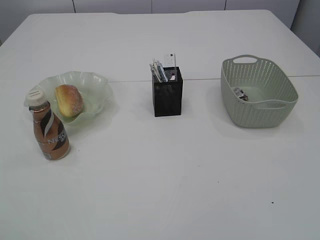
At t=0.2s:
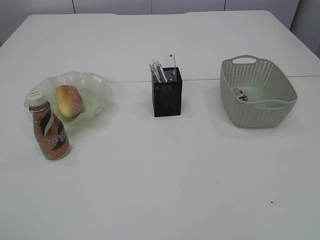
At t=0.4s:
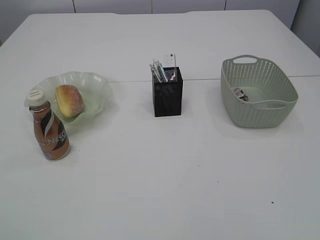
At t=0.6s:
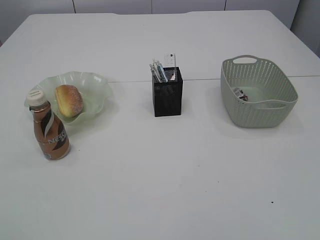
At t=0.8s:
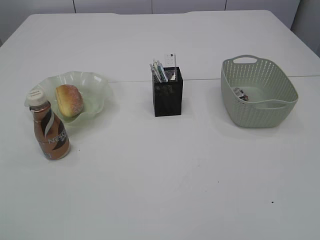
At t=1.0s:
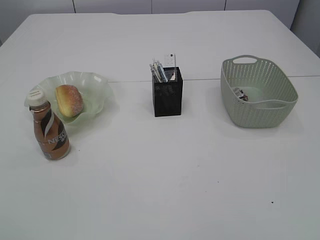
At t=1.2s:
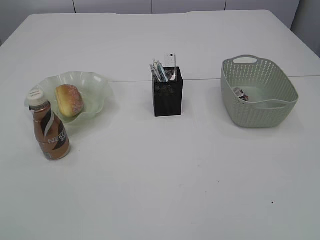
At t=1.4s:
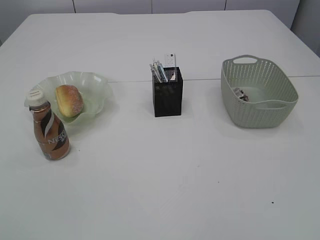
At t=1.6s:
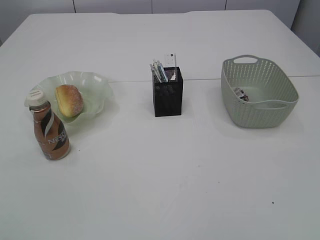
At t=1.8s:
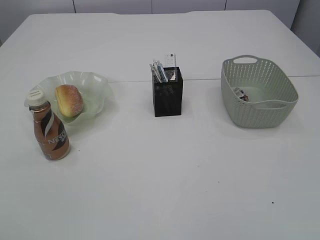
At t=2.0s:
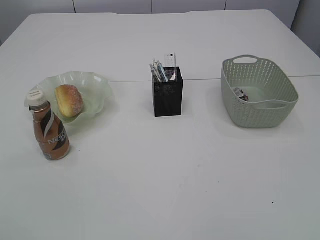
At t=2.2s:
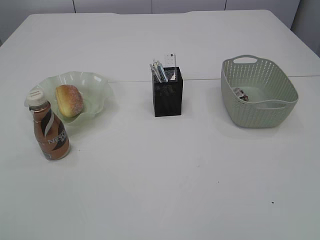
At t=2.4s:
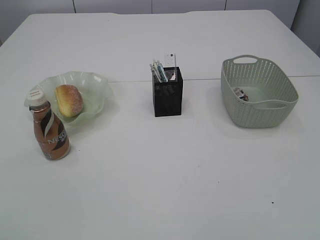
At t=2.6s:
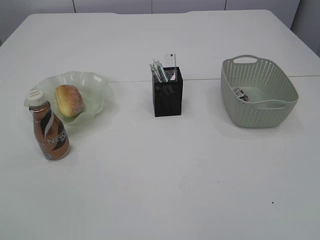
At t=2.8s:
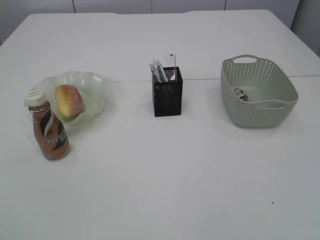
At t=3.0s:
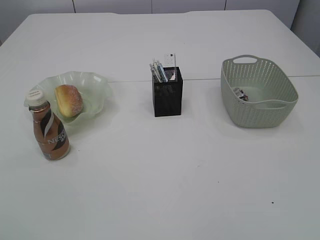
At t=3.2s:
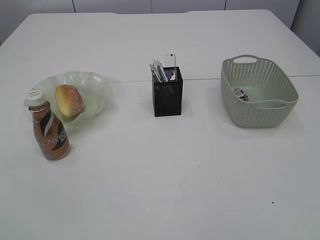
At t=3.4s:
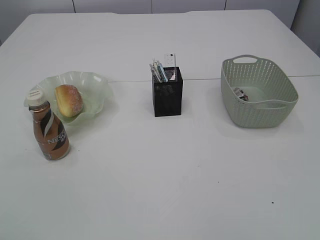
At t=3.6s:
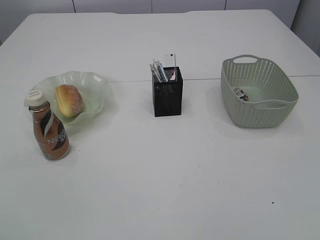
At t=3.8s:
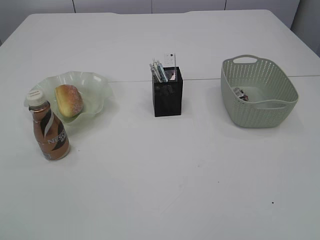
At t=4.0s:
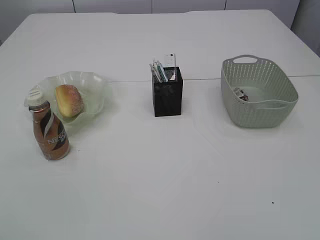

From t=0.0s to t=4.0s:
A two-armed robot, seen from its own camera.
From t=1.4s to t=4.0s: Both grippers stay about where they are.
